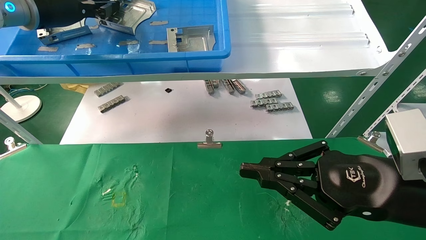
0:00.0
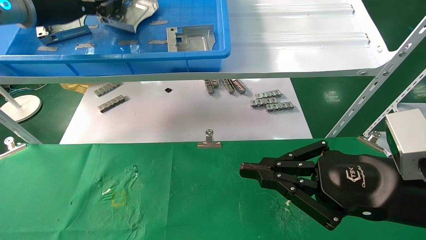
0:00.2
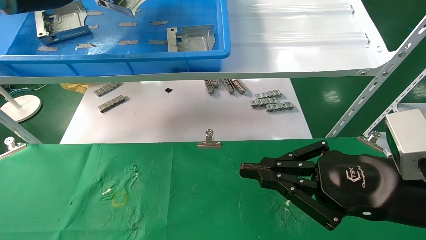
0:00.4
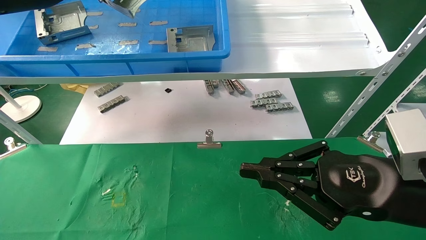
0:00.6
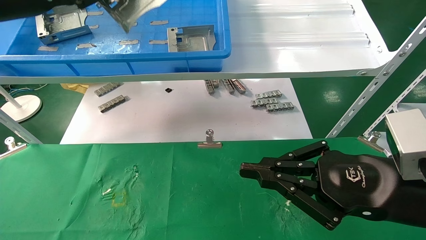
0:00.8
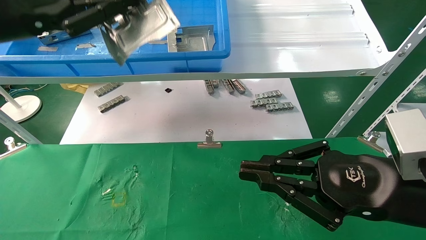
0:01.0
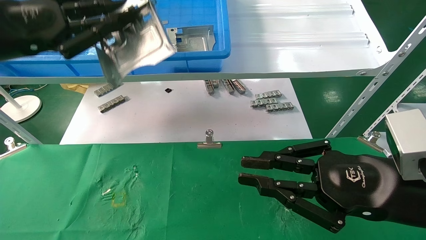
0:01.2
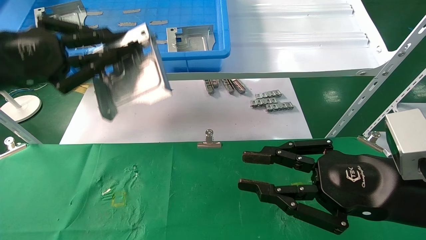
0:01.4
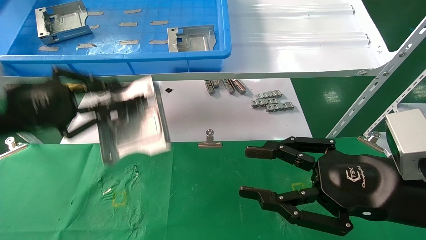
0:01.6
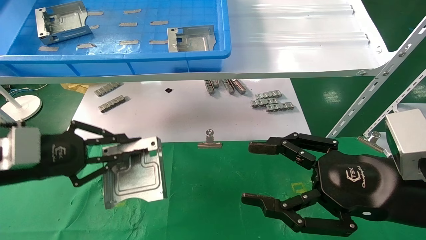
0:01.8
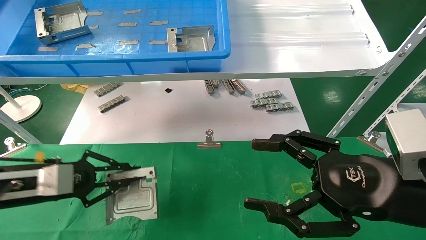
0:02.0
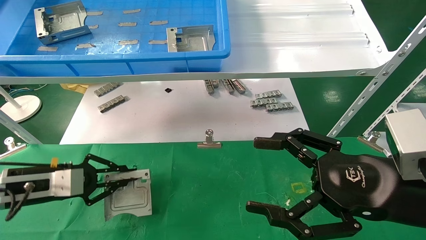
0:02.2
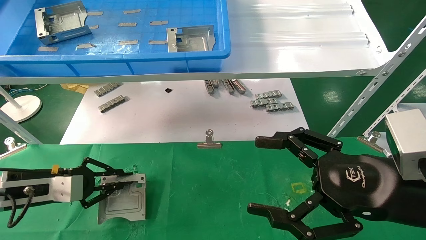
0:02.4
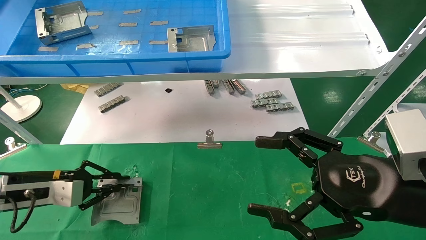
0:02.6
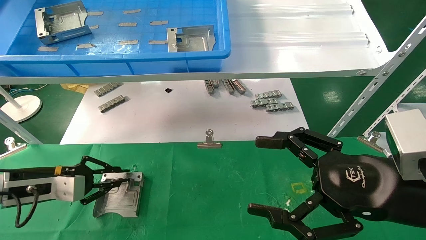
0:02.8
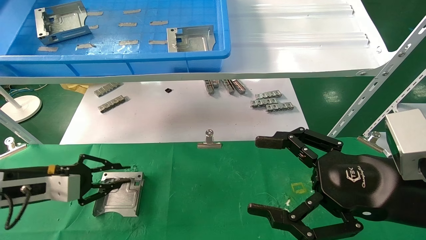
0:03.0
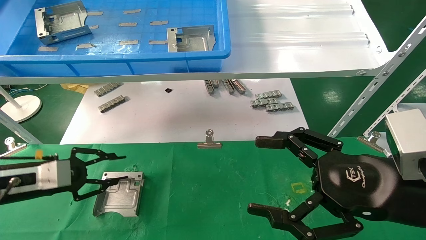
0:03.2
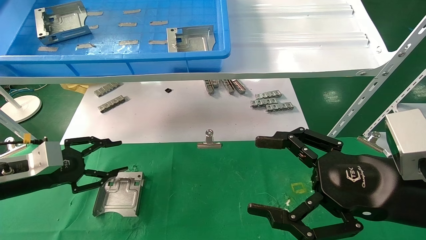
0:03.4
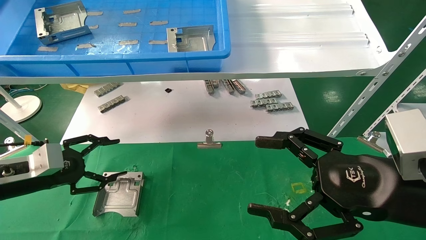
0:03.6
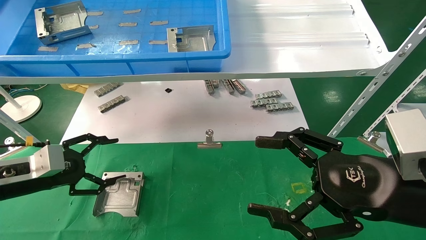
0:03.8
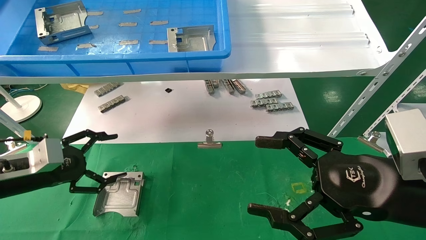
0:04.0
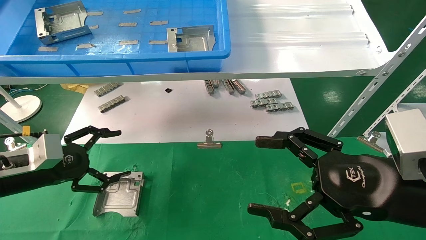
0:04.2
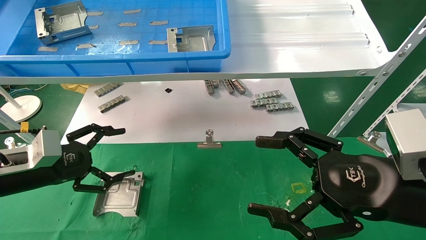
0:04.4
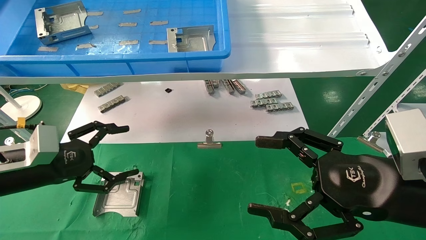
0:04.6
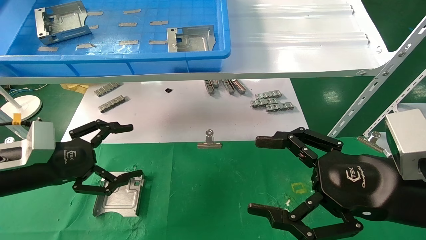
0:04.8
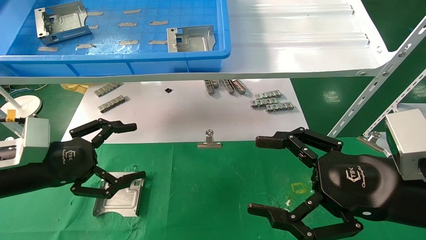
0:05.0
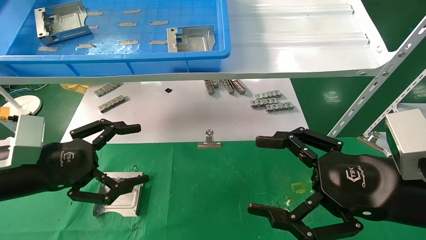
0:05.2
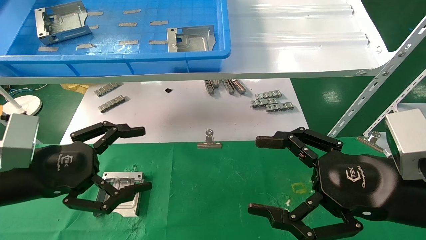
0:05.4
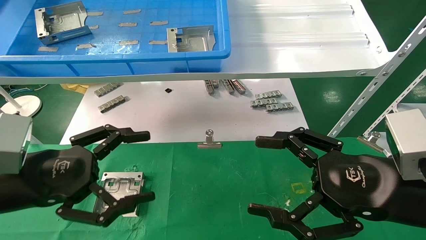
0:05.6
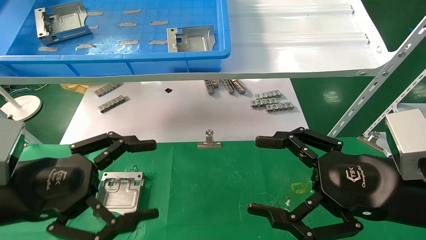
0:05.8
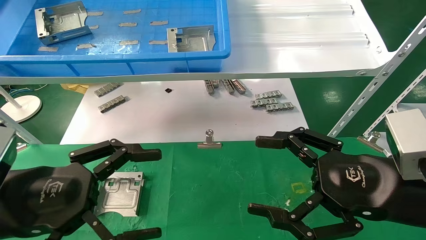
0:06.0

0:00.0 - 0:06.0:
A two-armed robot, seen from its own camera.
Task of the whole recording: use the mechanical arm to pick up the parts and place them on the table.
Step, 0:00.0 - 0:02.4: Place the hard drive bracket into the box.
0:00.0 - 0:01.6: The left gripper goes roughly 20 cm downward and backward. The right gripper opens up.
0:01.6 - 0:03.0: The right gripper opens its fingers; the left gripper is displaced downward and forward by some 15 cm.
0:03.0 - 0:04.4: The left gripper shifts by roughly 5 cm, and opens.
0:04.4 - 0:06.0: The left gripper moves backward and to the right, some 15 cm.
